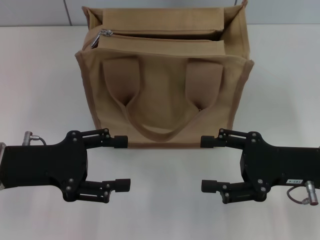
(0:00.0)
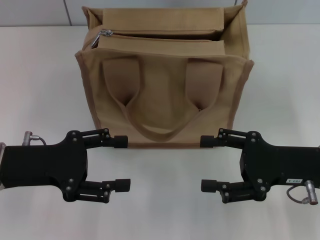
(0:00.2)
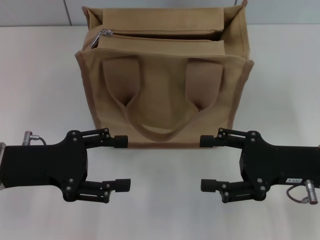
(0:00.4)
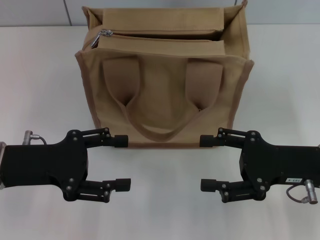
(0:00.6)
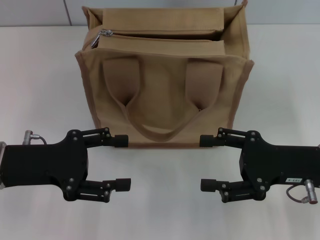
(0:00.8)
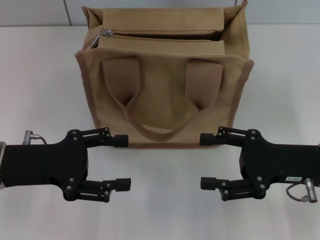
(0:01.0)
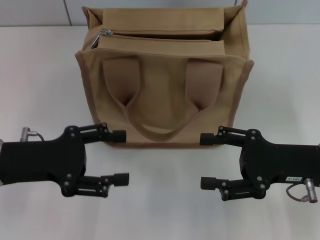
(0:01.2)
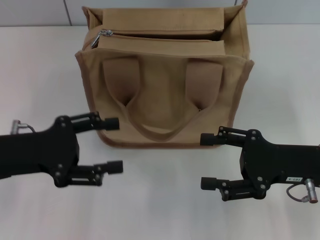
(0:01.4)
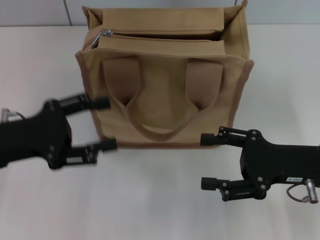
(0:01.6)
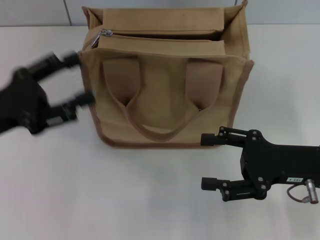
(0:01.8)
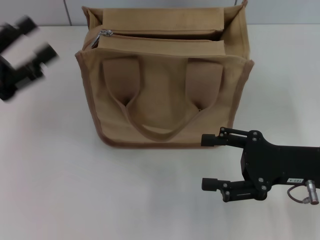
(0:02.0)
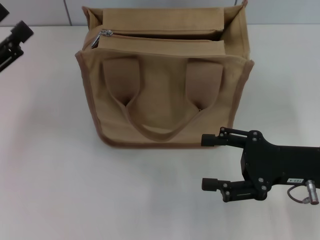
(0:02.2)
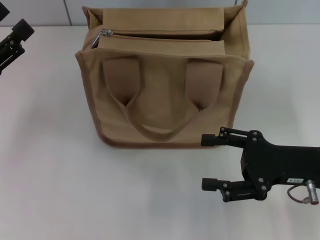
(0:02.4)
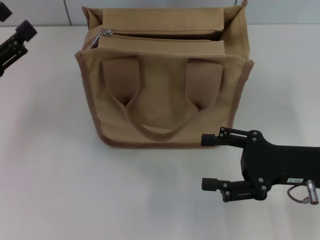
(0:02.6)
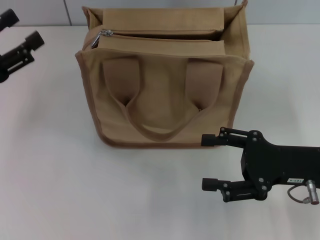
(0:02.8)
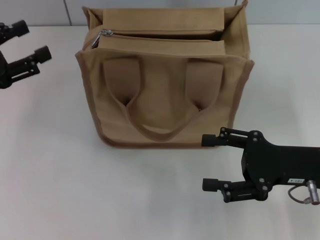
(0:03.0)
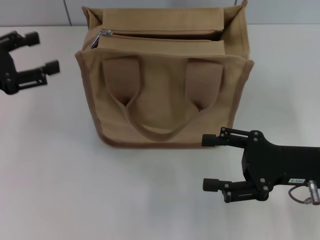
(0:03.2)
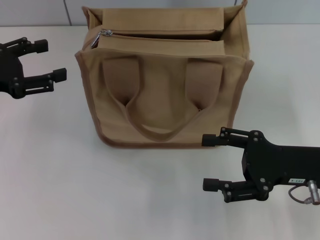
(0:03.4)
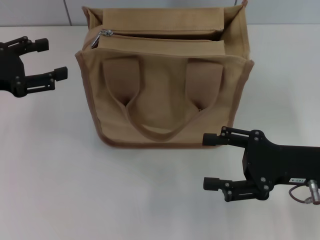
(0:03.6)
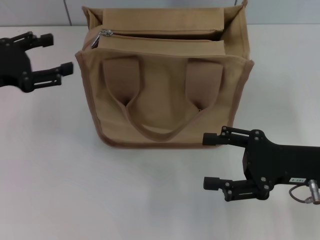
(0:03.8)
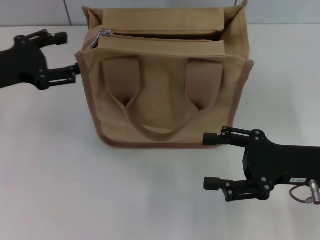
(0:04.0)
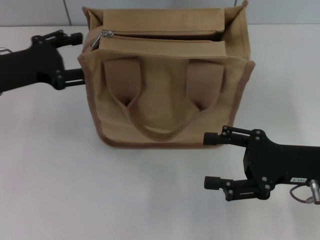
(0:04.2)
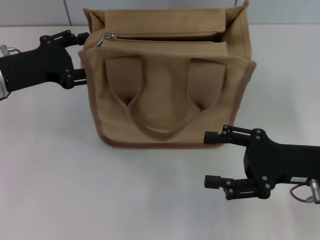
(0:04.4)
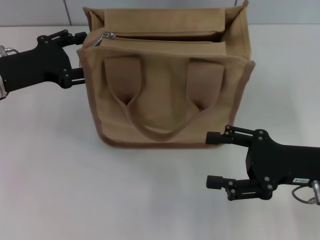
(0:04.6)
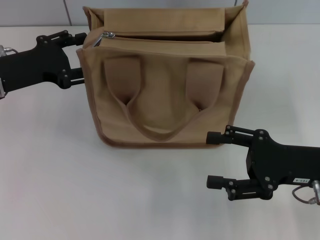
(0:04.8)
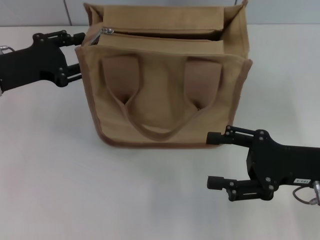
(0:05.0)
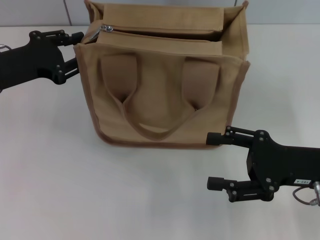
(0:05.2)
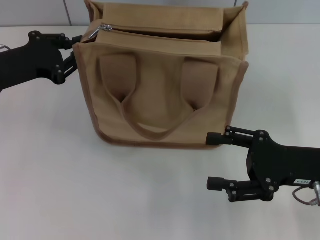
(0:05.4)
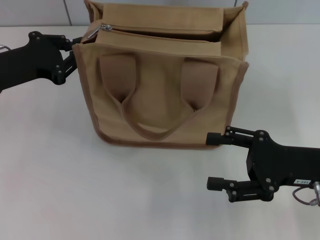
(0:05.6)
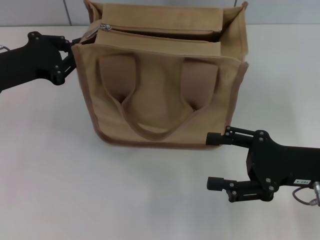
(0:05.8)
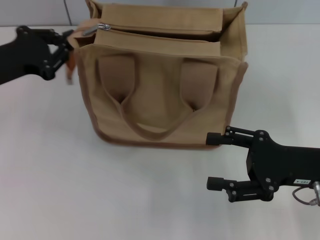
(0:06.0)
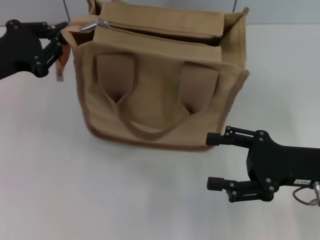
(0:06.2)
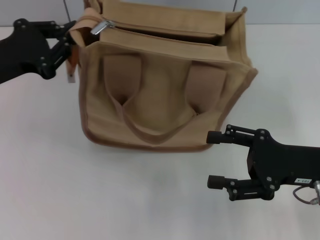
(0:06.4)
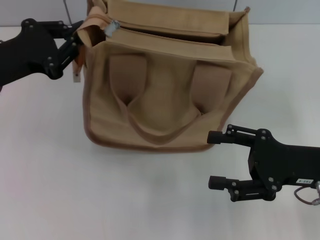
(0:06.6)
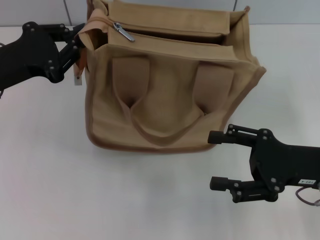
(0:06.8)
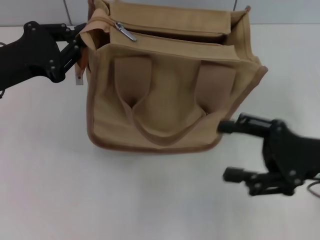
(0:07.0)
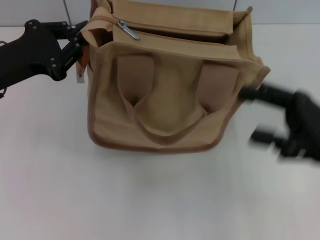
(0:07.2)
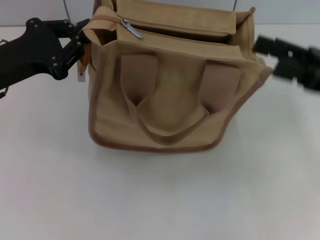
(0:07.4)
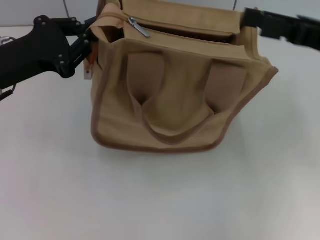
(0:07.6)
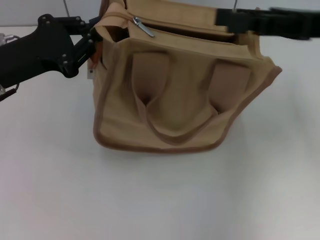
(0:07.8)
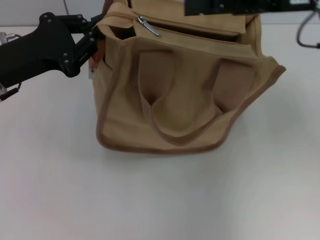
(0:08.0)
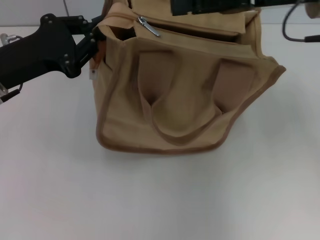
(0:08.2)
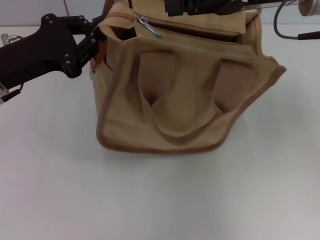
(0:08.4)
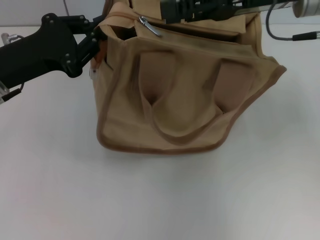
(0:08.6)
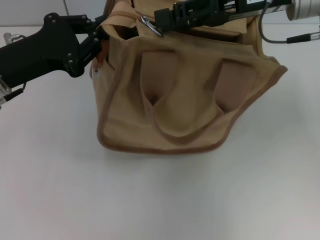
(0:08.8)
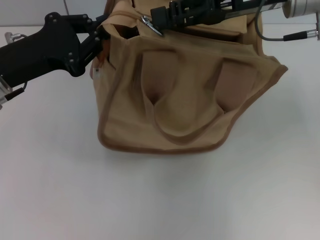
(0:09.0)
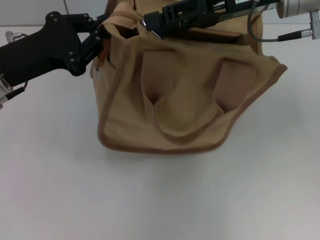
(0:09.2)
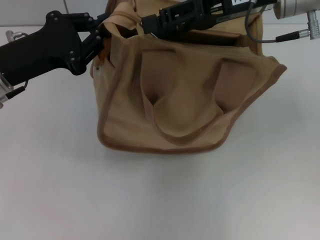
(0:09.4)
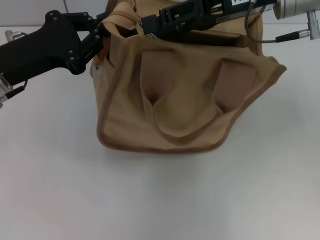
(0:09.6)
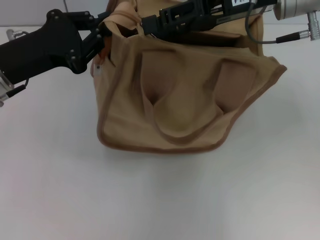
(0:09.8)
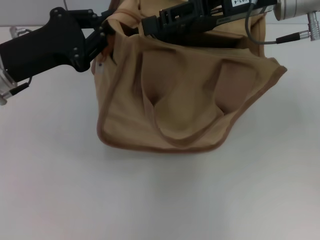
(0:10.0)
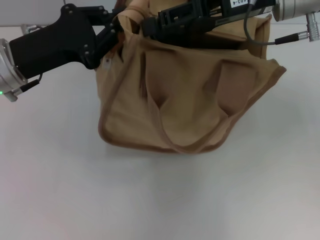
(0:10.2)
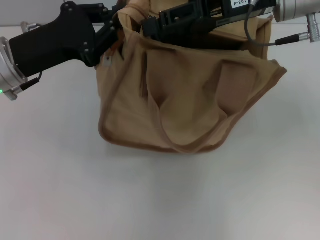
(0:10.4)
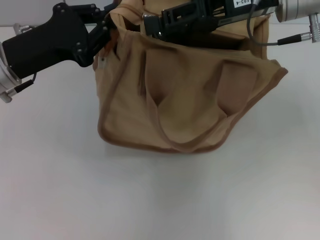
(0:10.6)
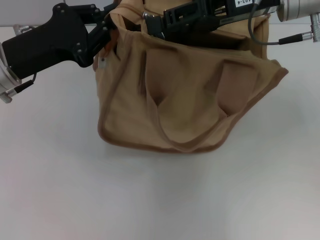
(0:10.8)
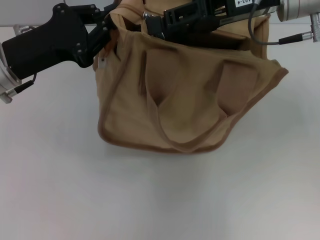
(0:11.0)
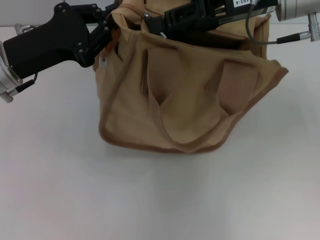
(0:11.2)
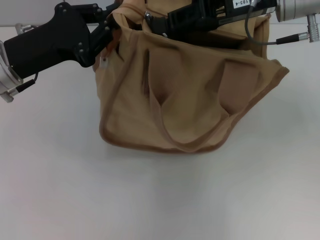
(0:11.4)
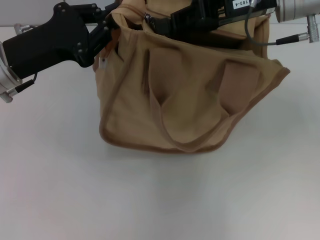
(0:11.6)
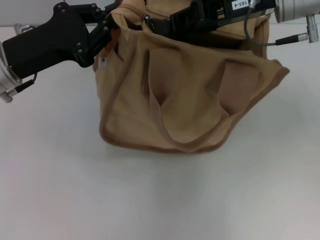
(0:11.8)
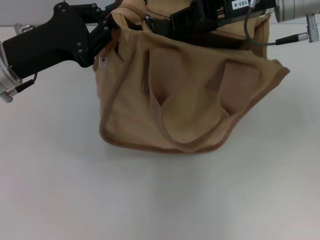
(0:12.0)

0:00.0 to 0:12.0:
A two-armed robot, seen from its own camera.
0:00.0 to 0:01.6: The grippers make only small movements.
0:01.6 to 0:03.0: The left gripper heads to the left, covering approximately 5 cm.
0:03.0 to 0:04.4: The left gripper heads to the right, covering about 5 cm.
0:04.4 to 0:06.0: The left gripper closes its fingers.
0:06.0 to 0:07.6: The right gripper goes some 15 cm upward and forward.
0:07.6 to 0:09.0: The right gripper is displaced to the left and forward by about 10 cm, and closes.
0:09.0 to 0:10.4: The grippers move only a little.
0:10.4 to 0:12.0: The right gripper closes.

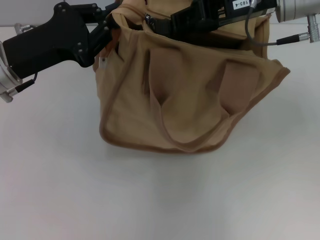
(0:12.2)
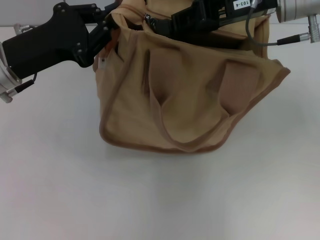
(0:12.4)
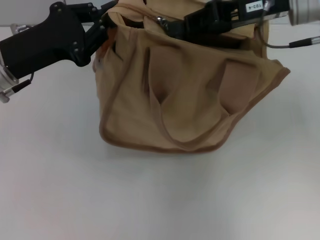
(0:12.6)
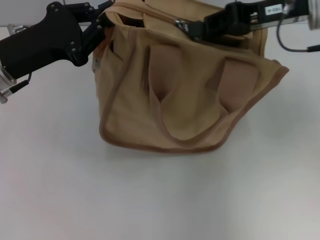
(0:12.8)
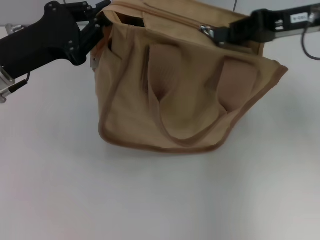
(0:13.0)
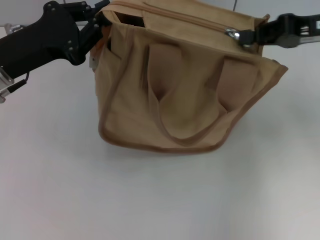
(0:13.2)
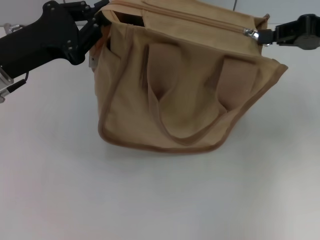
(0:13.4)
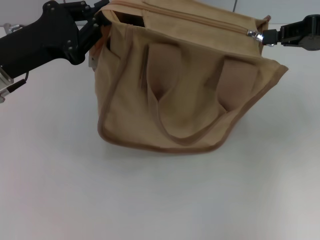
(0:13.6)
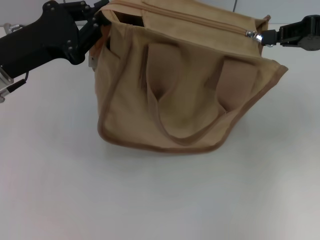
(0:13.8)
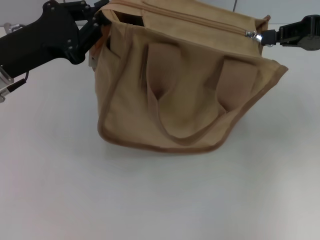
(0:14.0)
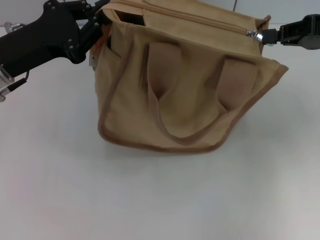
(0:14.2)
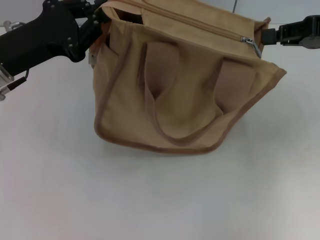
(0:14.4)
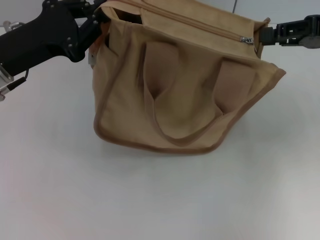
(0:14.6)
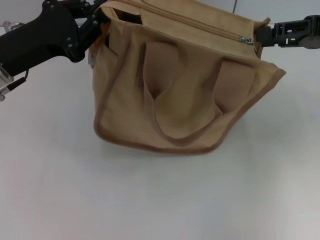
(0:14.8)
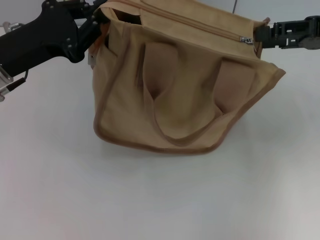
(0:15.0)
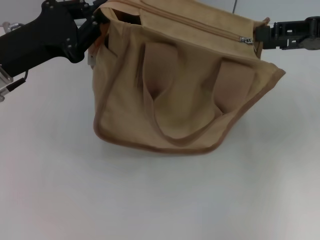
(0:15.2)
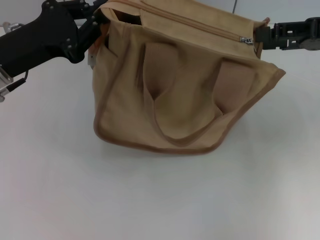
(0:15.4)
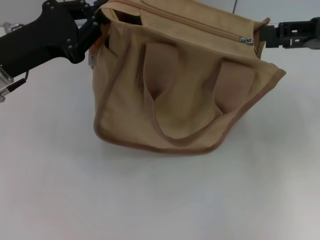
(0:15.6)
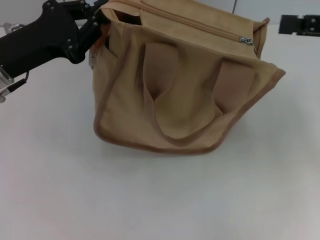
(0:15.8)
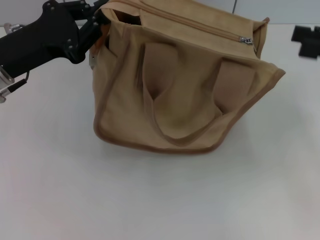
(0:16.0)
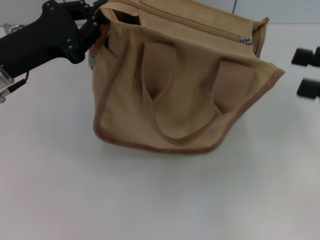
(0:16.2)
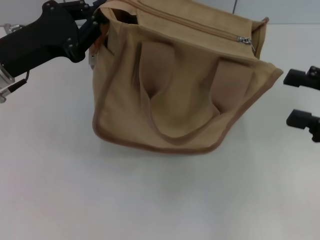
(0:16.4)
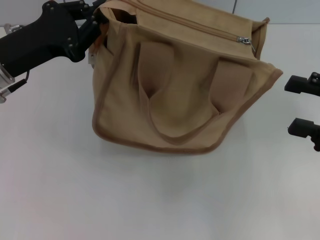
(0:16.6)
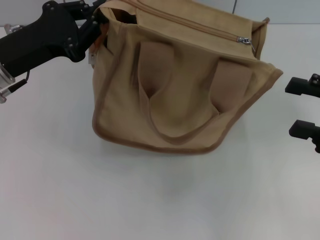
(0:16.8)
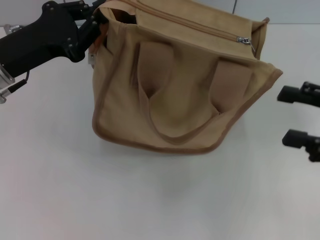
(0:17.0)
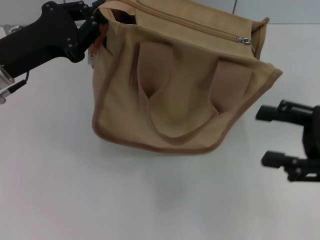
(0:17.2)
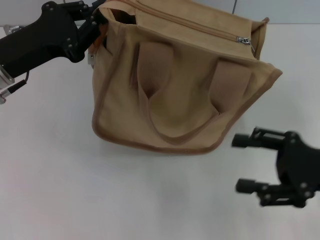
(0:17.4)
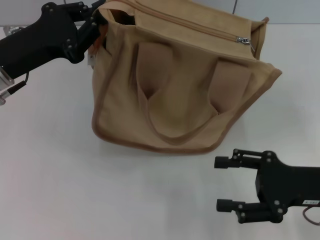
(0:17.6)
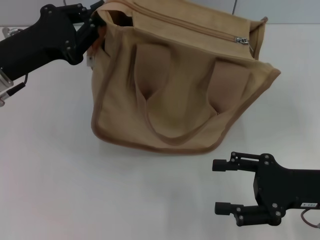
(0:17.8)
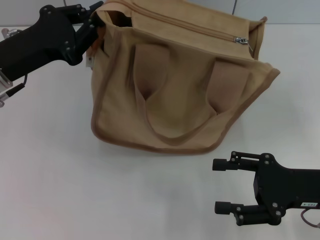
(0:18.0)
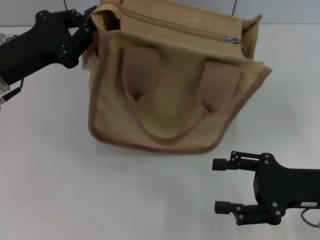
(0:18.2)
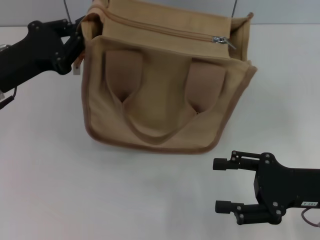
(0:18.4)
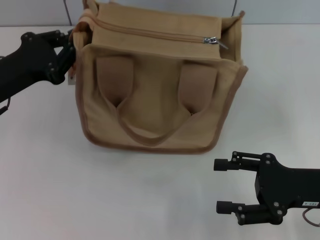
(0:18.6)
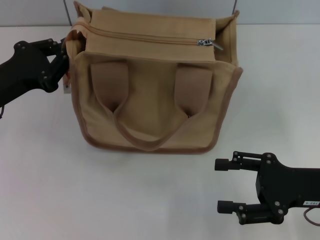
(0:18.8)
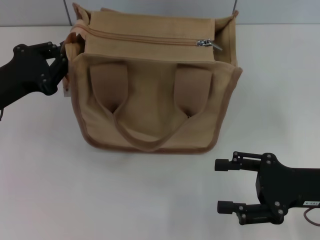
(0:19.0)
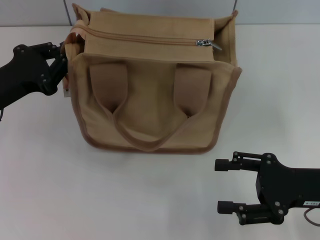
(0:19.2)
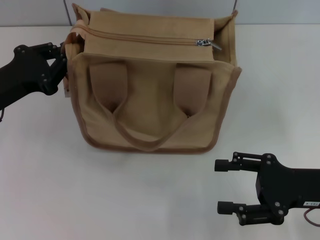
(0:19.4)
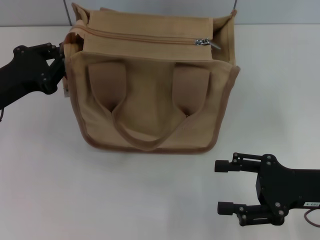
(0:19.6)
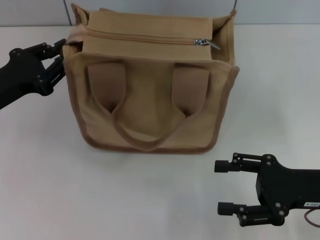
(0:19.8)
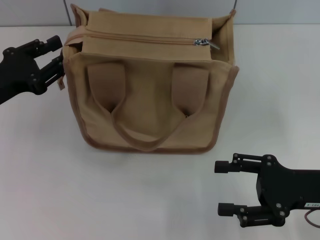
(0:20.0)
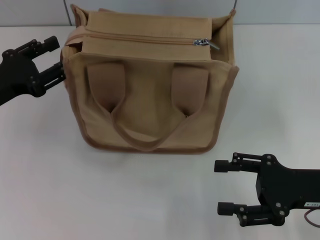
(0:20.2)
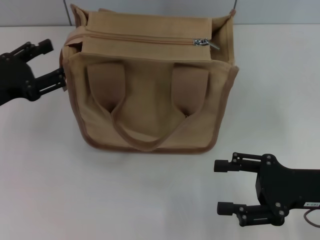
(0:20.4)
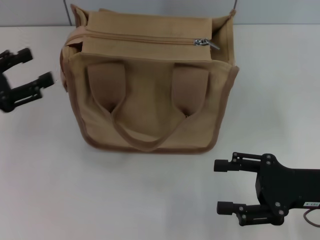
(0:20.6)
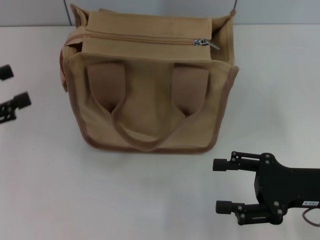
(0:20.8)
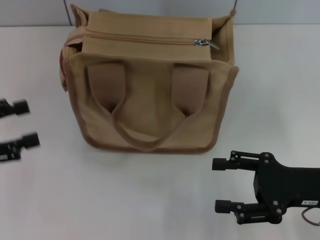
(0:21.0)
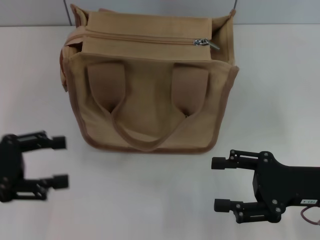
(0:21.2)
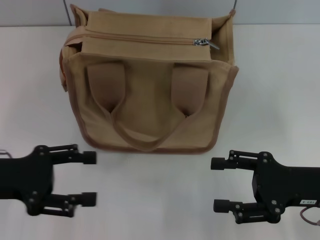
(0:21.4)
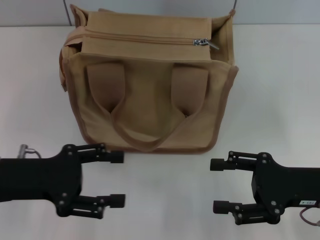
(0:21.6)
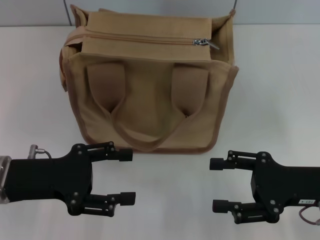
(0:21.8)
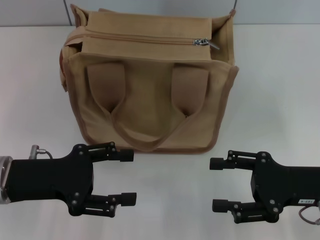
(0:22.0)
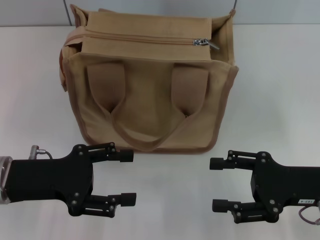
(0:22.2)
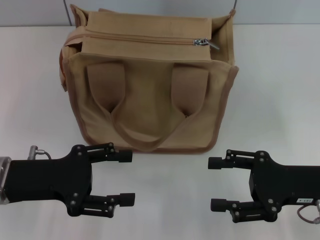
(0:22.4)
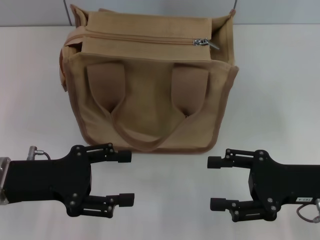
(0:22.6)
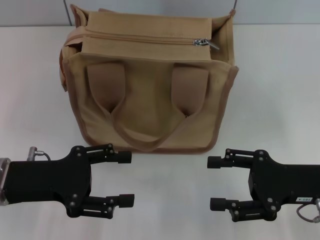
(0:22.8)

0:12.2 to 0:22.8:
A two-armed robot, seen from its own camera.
Step, 0:12.2 to 0:15.6: Pull up the zipper with your right hand.
Step, 0:16.0 to 0:20.2: Grab the zipper with your left hand.
0:12.2 to 0:13.8: The right gripper moves to the right, some 15 cm.
0:13.8 to 0:15.2: The right gripper opens its fingers.
0:15.2 to 0:16.8: The right gripper goes about 15 cm backward and downward.
0:16.8 to 0:18.2: The right gripper heads downward and to the left, covering approximately 10 cm.
0:18.2 to 0:19.8: The left gripper moves approximately 5 cm.
0:19.8 to 0:21.2: The left gripper heads backward, covering roughly 5 cm, and opens up.
0:21.2 to 0:22.8: The left gripper goes approximately 10 cm to the right.
